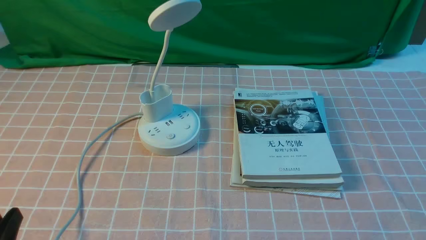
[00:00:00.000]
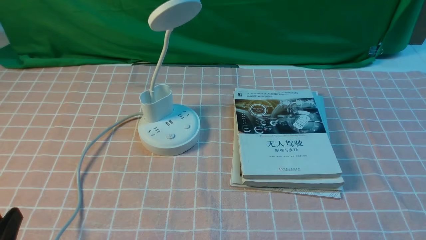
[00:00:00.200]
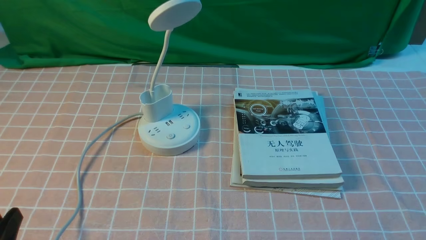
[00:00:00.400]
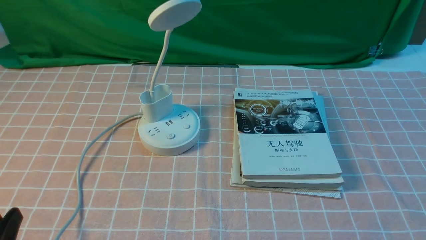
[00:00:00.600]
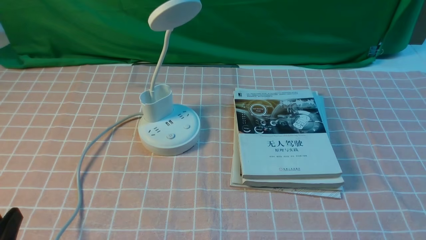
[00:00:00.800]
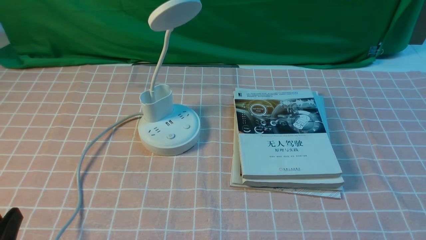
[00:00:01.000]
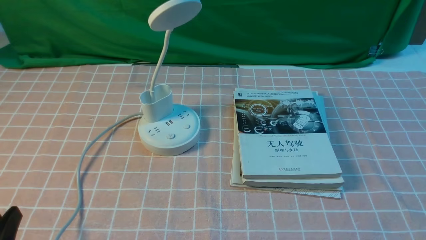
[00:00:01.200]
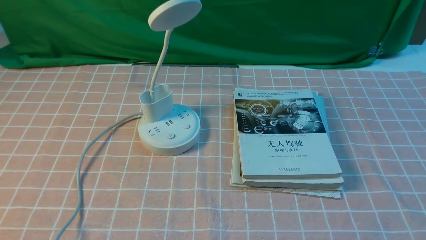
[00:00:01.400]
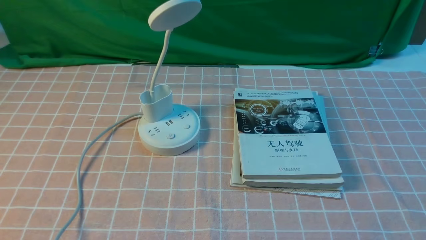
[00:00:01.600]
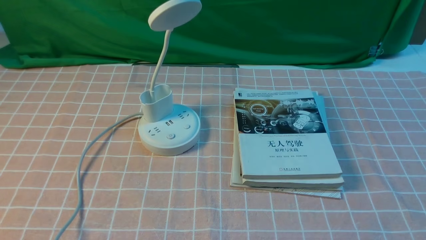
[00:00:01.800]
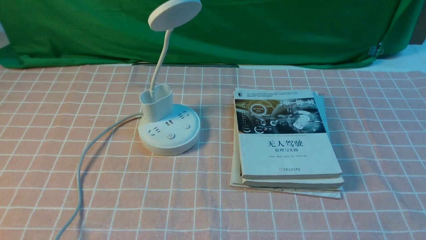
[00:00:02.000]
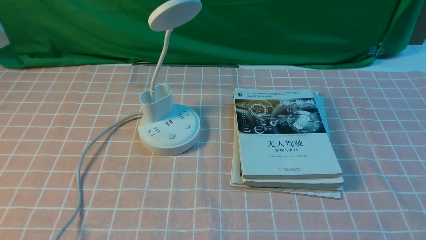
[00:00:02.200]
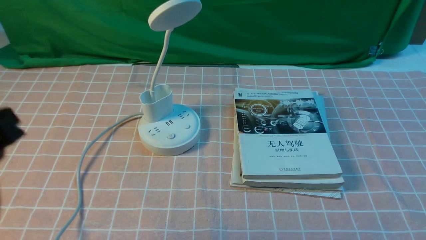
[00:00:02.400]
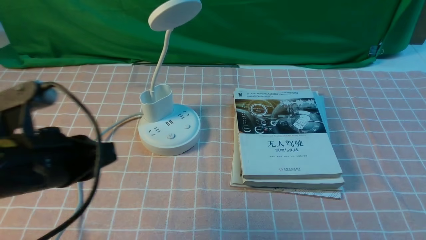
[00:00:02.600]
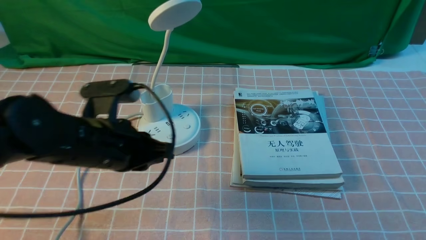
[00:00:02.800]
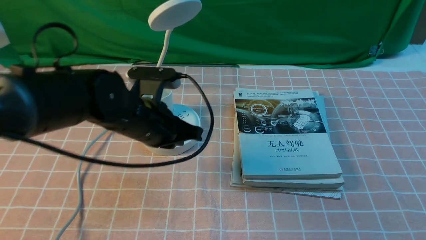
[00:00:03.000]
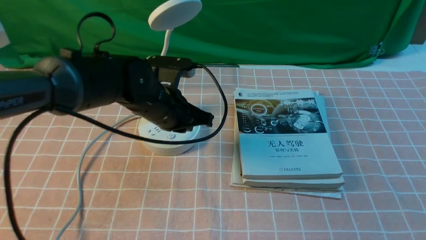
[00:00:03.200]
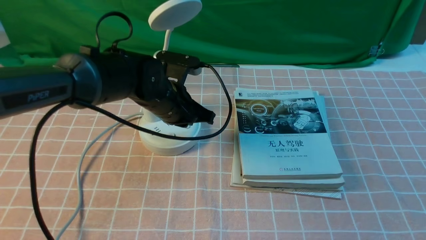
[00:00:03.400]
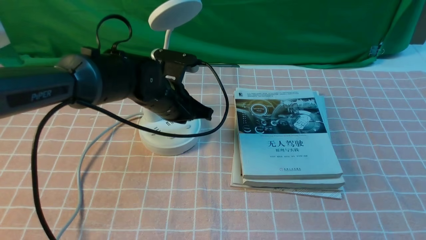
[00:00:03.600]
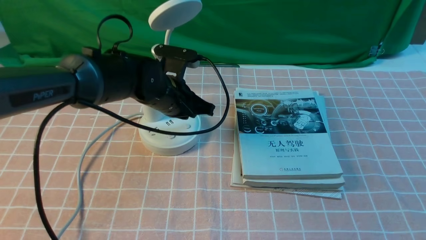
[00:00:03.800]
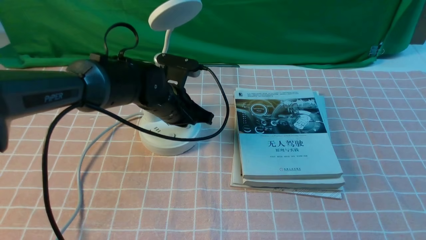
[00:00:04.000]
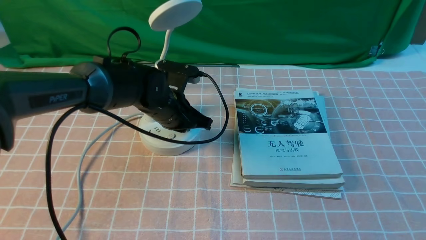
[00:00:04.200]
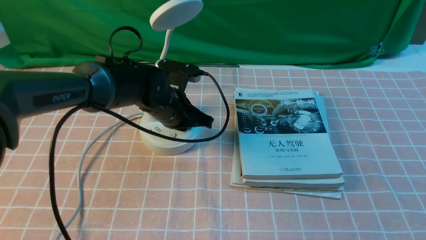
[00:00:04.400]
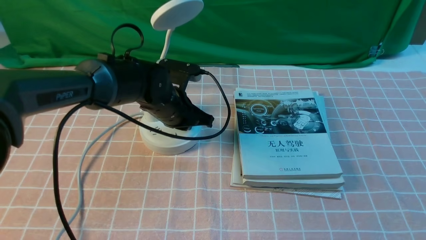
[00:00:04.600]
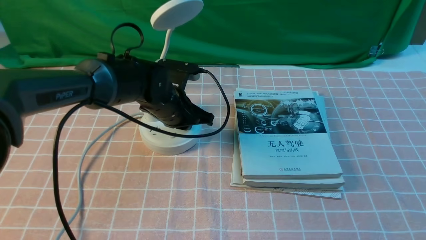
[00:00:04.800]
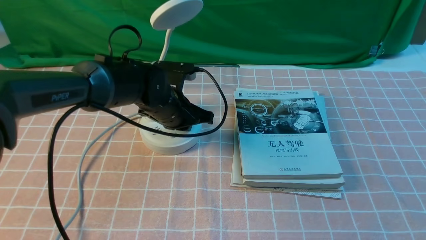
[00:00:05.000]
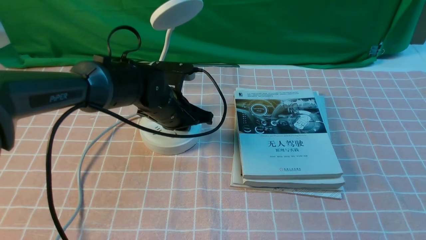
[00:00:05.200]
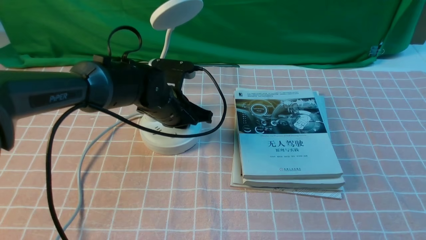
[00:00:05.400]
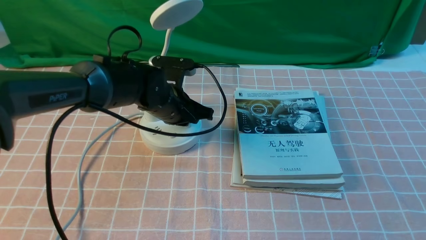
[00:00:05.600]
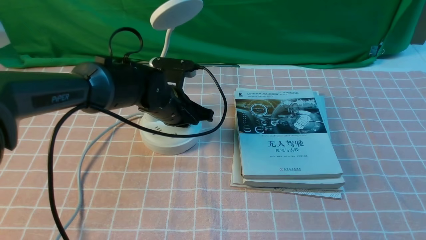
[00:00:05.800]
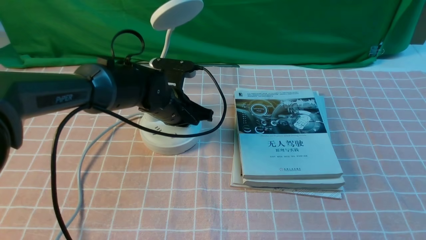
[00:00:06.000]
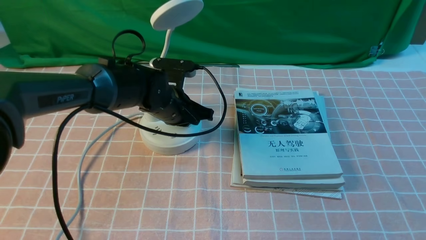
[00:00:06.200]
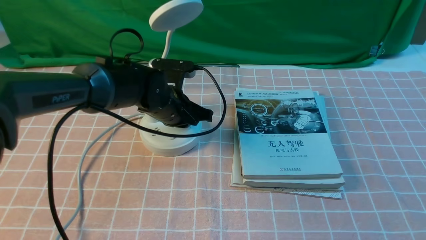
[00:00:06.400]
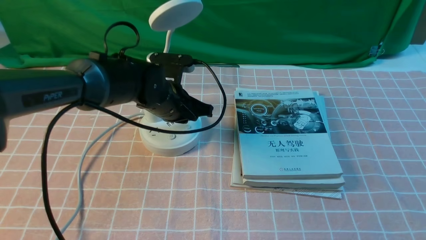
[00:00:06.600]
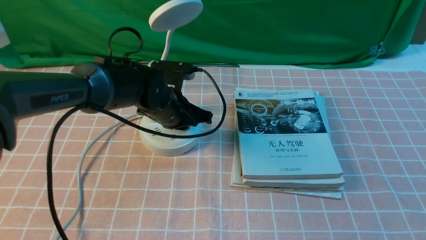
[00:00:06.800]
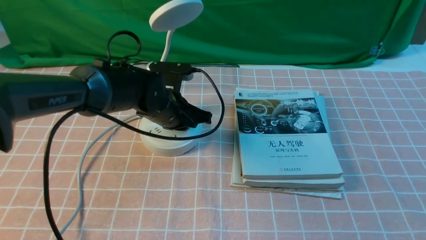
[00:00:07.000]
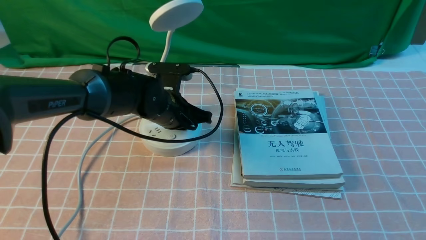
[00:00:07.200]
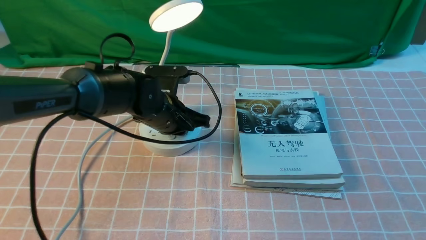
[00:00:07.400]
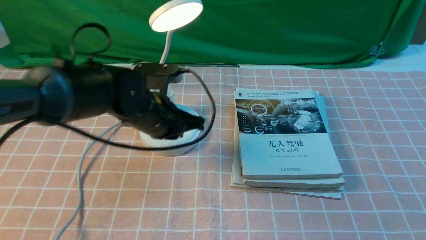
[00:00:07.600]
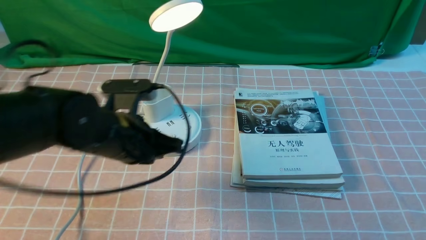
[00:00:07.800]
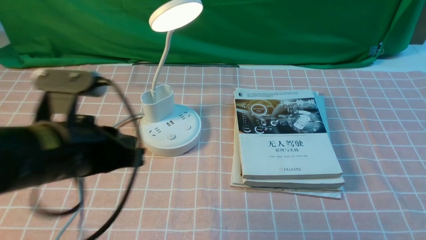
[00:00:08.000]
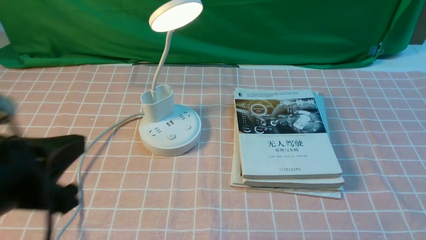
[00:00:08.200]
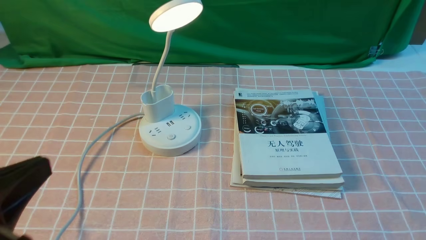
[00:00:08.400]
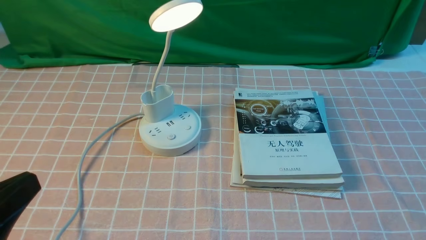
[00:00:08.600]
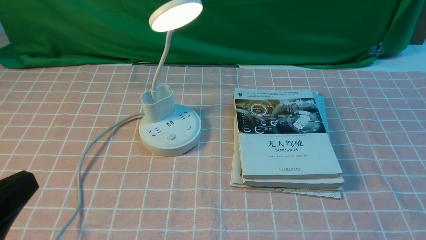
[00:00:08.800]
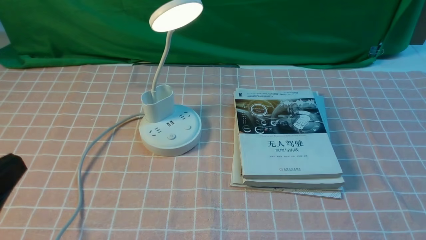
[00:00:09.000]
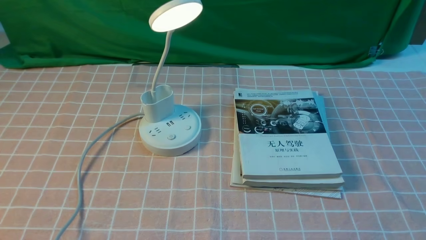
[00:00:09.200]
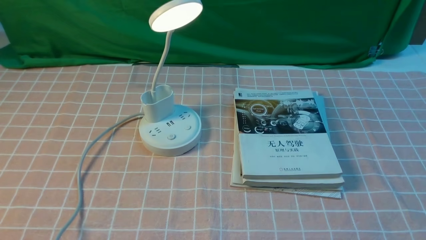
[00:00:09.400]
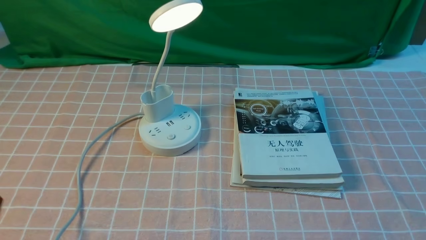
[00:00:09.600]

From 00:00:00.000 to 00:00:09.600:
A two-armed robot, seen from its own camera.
Step, from 00:00:00.000 to 00:00:07.600: use the left arm to press the button switch on the lamp holder.
From 00:00:01.600 to 00:00:03.200: The left gripper heads forward and to the right, covering approximately 35 cm, and closes its fingers.
From 00:00:03.200 to 00:00:04.800: The left gripper ends up about 5 cm from where it was.
From 00:00:04.800 to 00:00:06.400: The grippers stay close to where they were, moving slightly.
From 00:00:06.400 to 00:00:08.000: The left gripper shifts roughly 25 cm backward, upward and to the left.
From 00:00:08.000 to 00:00:09.600: The left gripper heads backward, to the left and downward, covering roughly 20 cm.

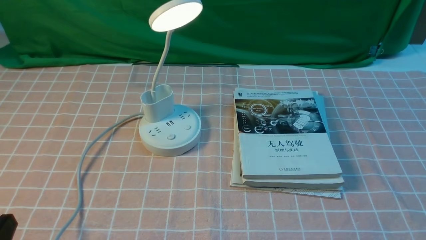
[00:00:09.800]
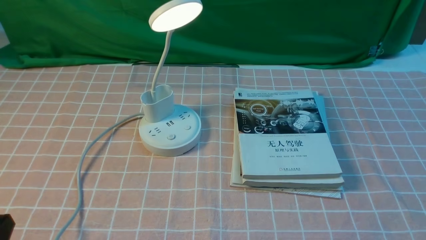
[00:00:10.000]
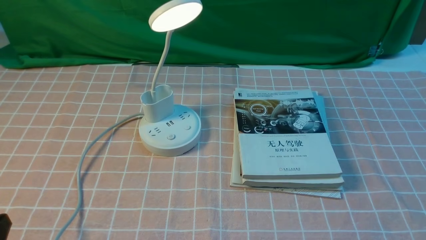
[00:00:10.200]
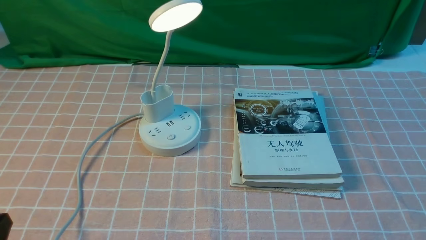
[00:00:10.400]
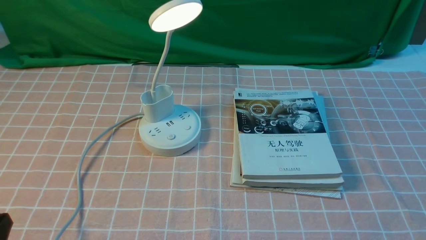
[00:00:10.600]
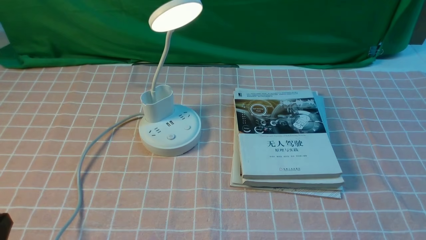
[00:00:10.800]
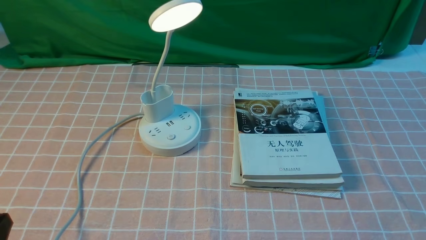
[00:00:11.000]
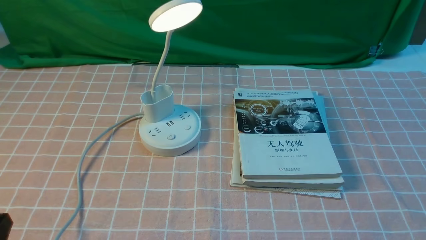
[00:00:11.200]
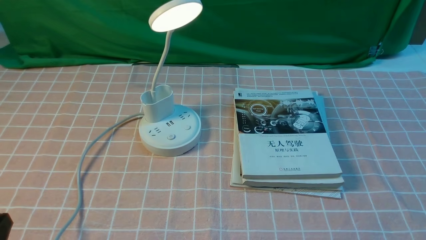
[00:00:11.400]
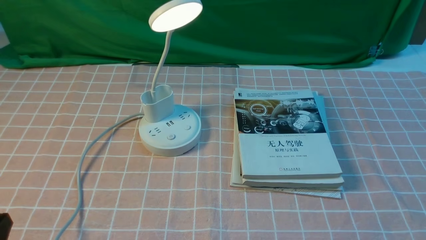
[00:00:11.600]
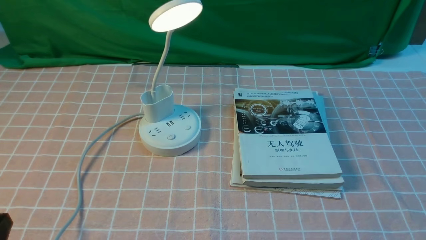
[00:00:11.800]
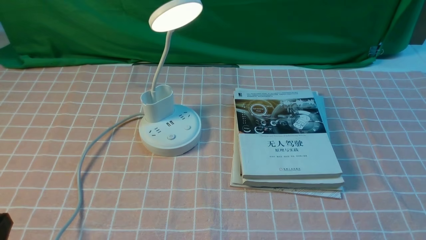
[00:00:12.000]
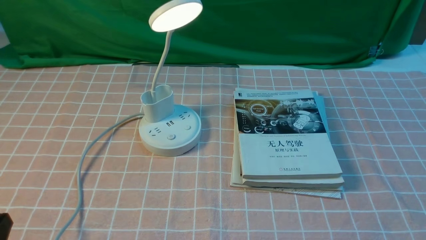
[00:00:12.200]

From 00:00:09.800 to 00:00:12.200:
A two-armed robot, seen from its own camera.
From 00:00:09.800 to 00:00:12.200: Both grippers stay put.
